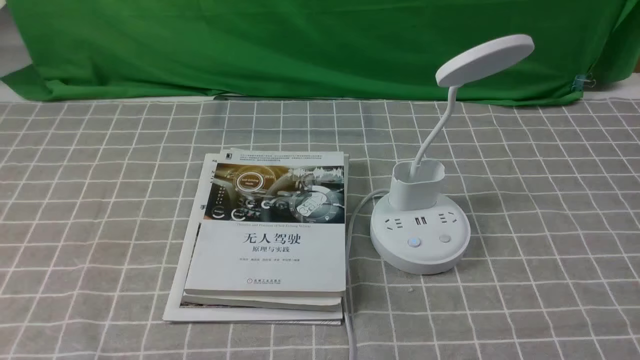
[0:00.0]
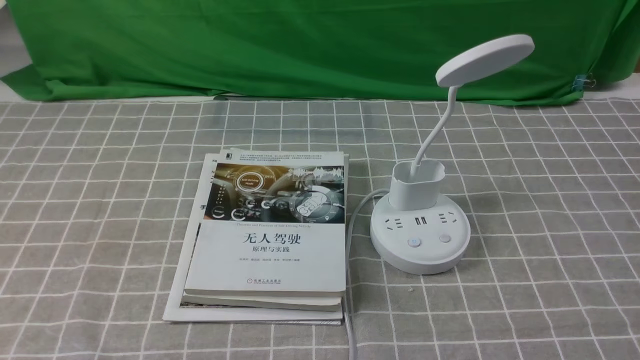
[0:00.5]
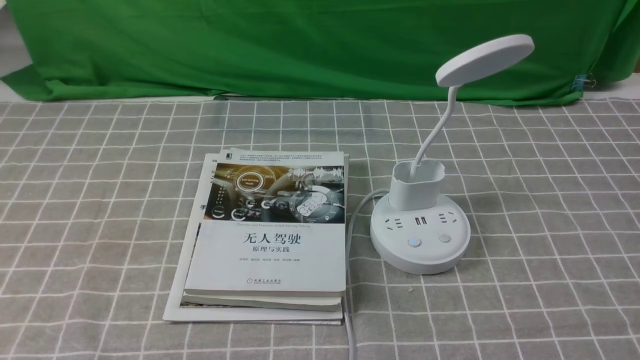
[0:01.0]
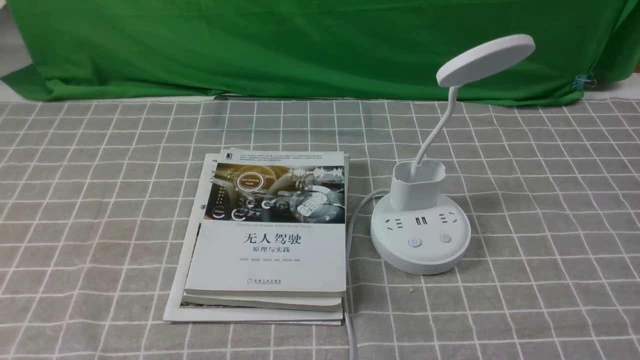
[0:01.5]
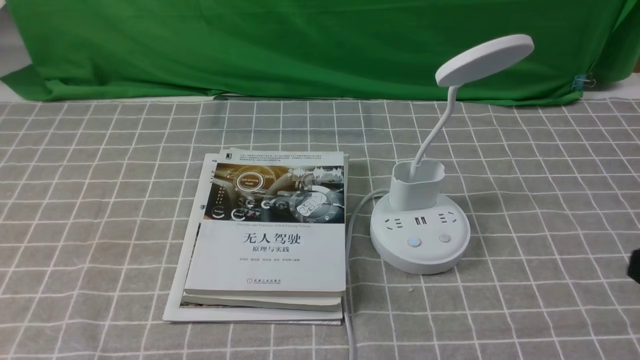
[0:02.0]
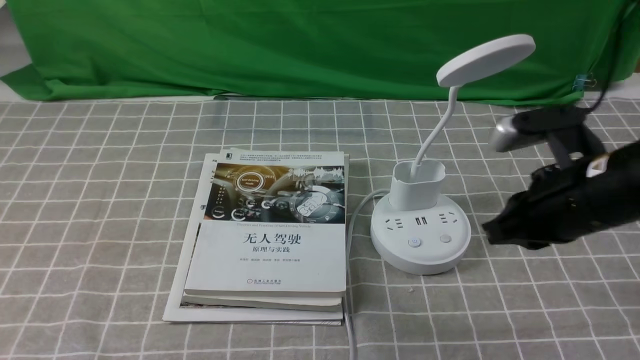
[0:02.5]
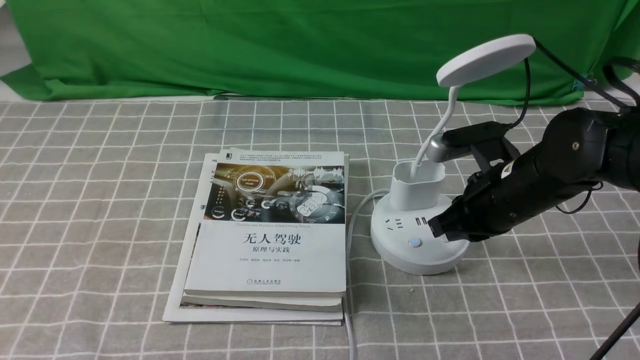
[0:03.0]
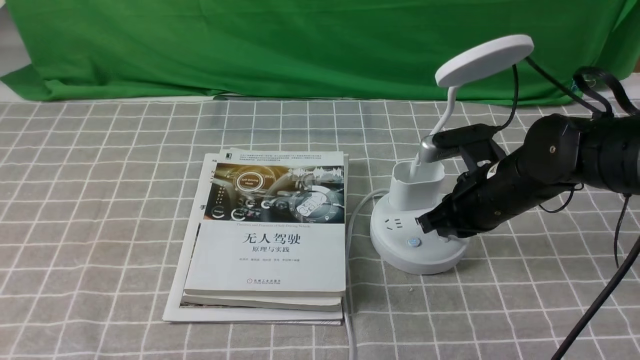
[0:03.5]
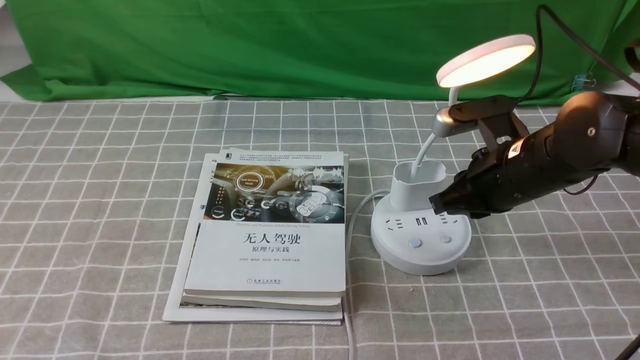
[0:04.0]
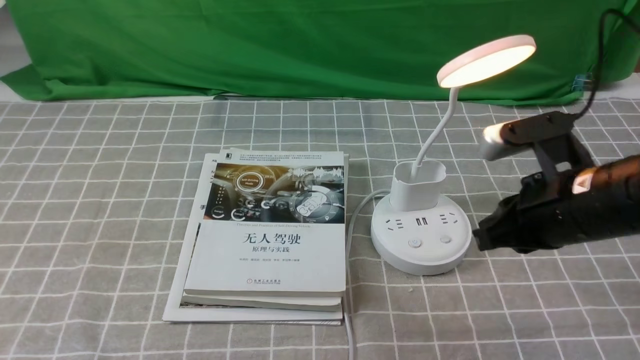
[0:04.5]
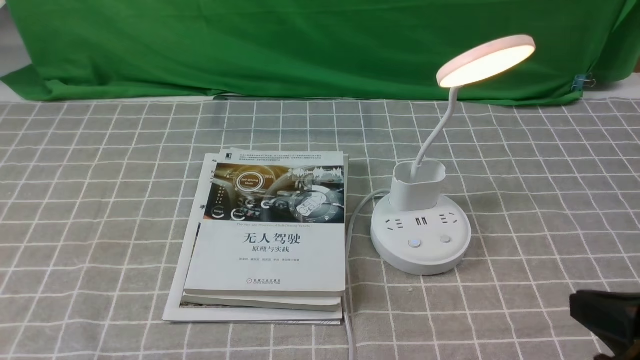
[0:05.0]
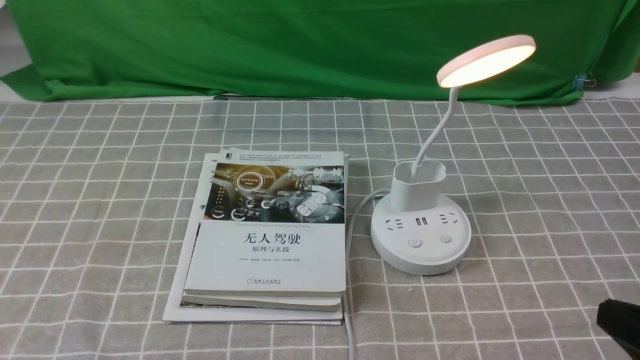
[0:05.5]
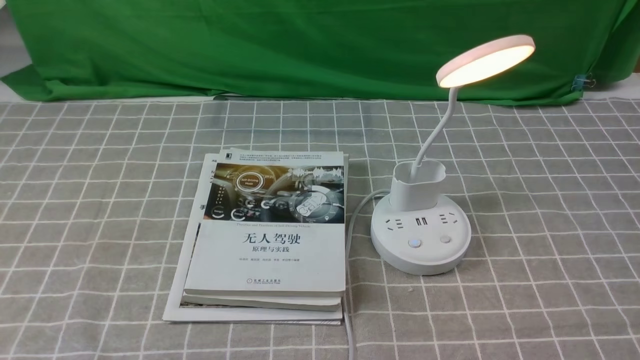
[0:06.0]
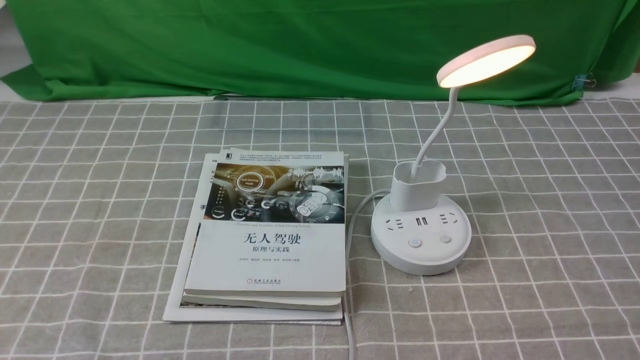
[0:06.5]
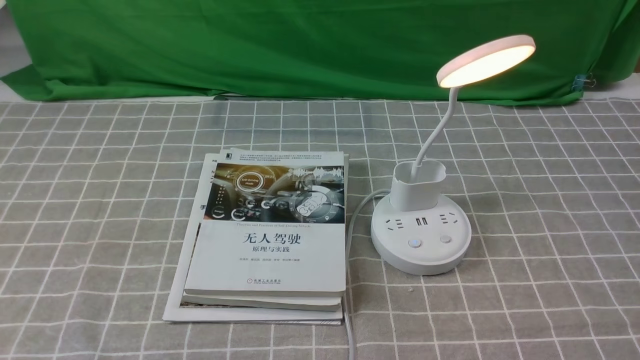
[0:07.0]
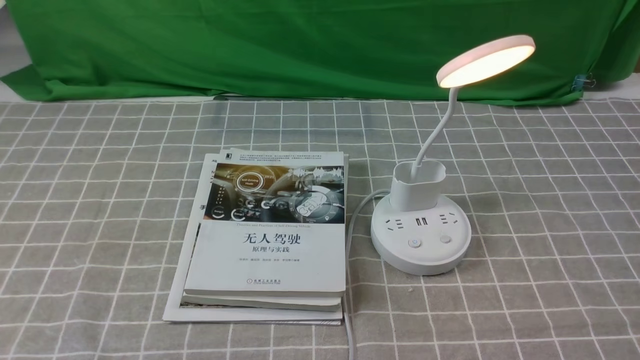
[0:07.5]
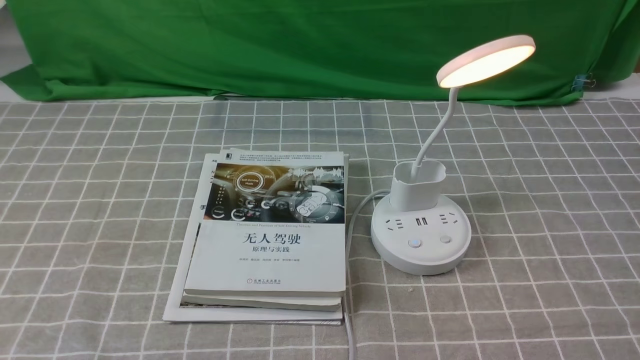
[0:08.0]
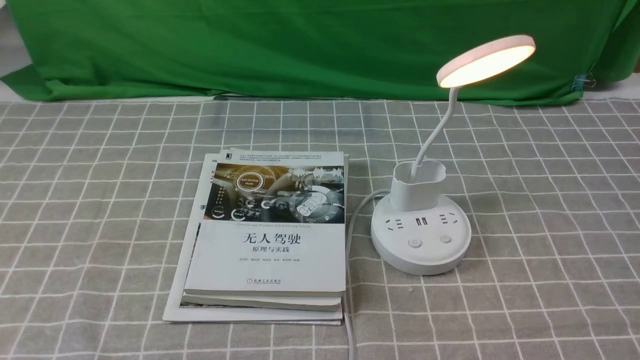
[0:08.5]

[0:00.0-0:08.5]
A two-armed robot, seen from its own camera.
Step, 0:00.0 to 0:04.0: use the right arm to press the button switch on the lamp holder.
0:02.0 to 0:04.0: The right gripper goes some 25 cm forward, to the left and downward.
0:04.0 to 0:06.5: The right gripper is displaced backward and to the right by approximately 30 cm.
